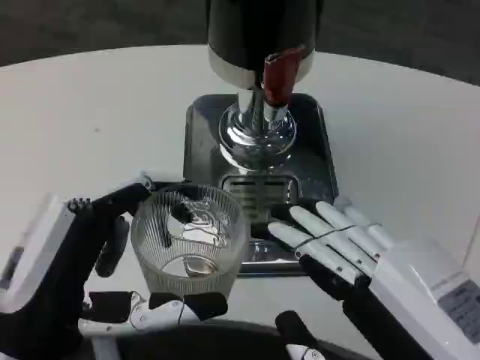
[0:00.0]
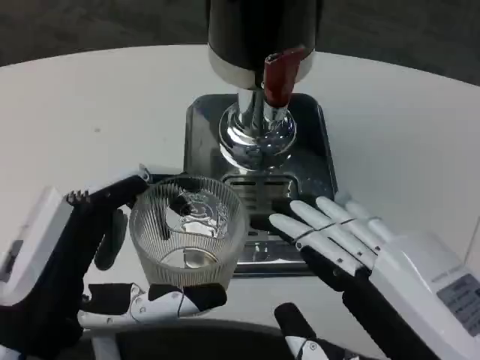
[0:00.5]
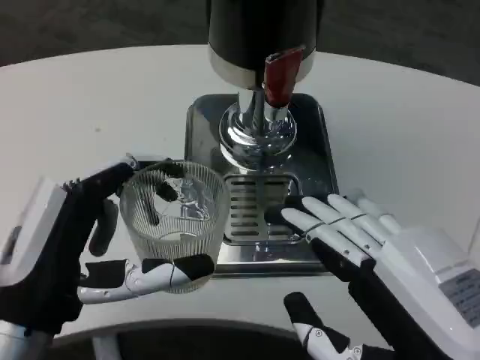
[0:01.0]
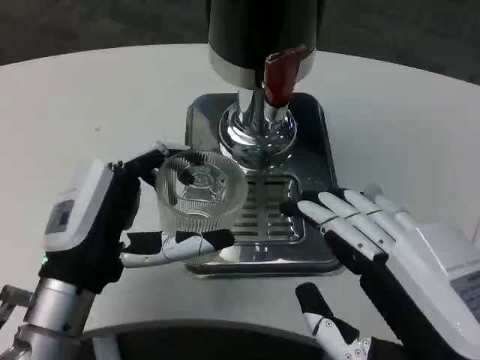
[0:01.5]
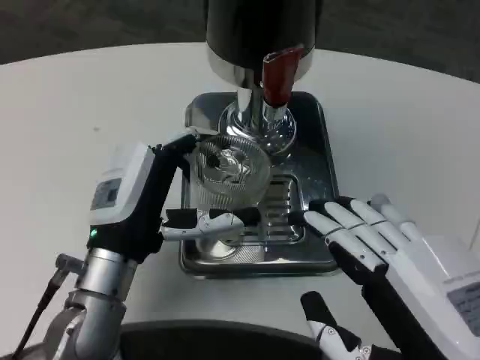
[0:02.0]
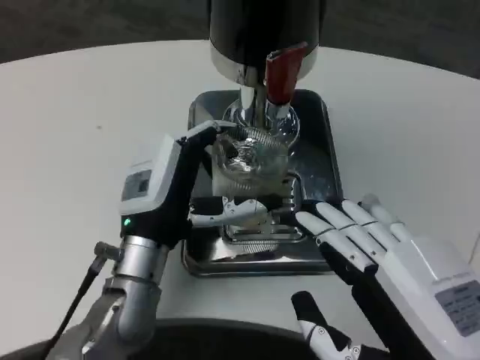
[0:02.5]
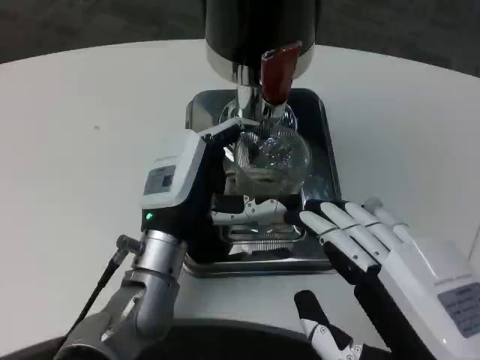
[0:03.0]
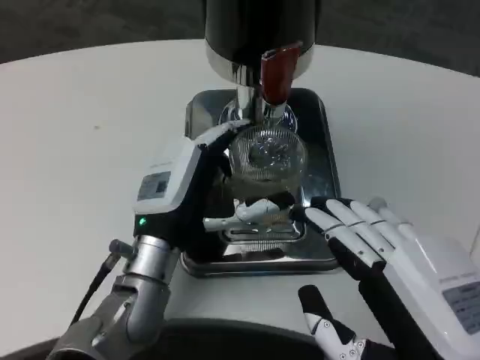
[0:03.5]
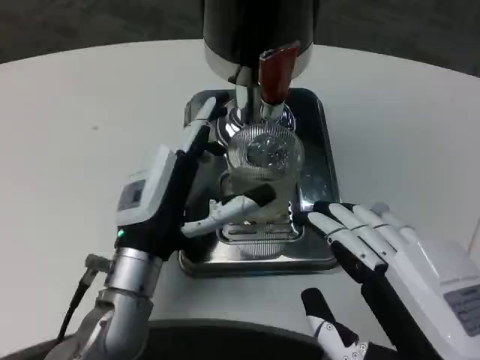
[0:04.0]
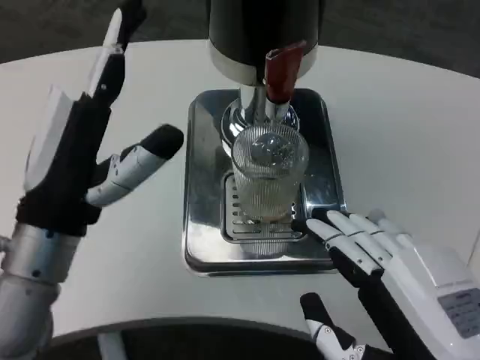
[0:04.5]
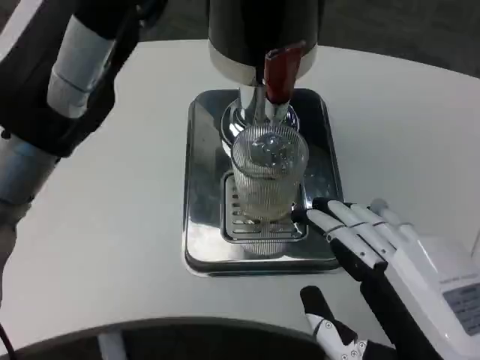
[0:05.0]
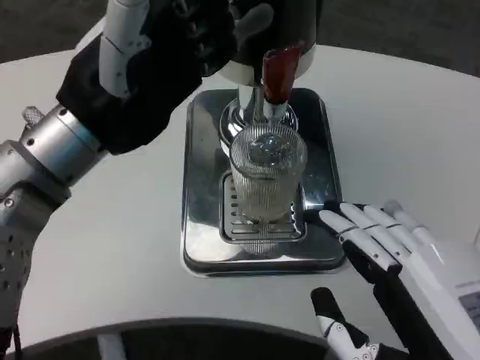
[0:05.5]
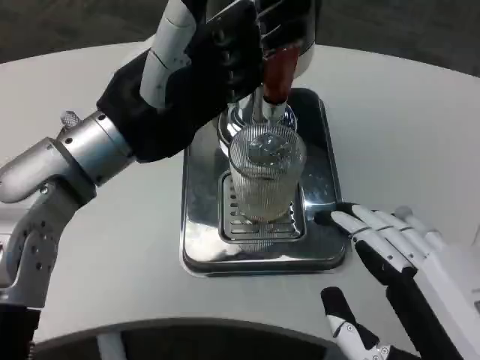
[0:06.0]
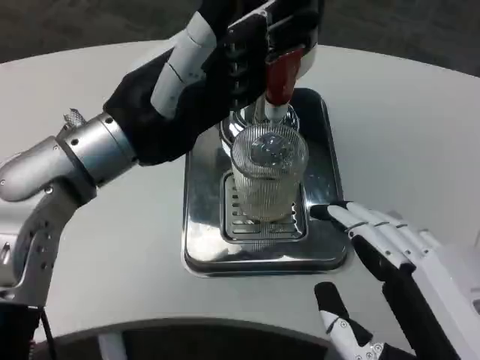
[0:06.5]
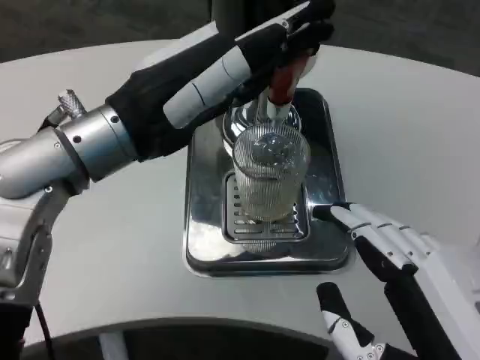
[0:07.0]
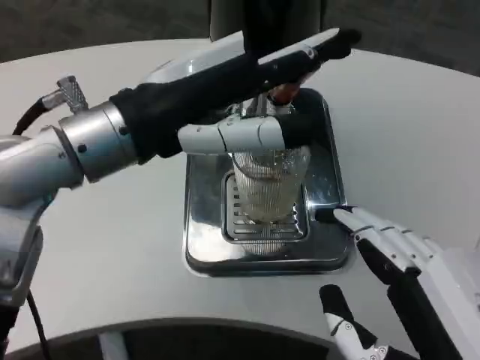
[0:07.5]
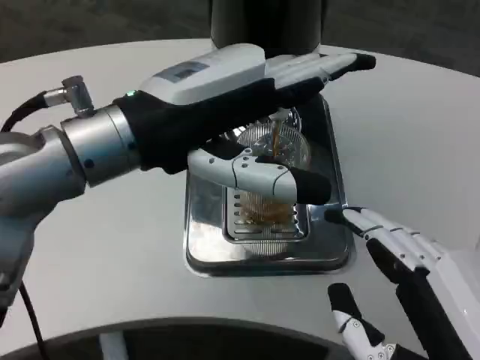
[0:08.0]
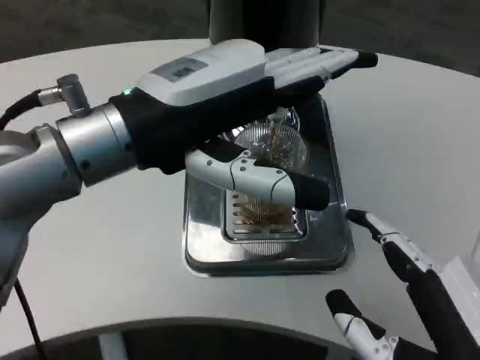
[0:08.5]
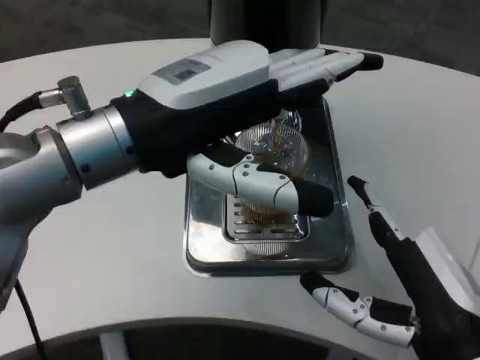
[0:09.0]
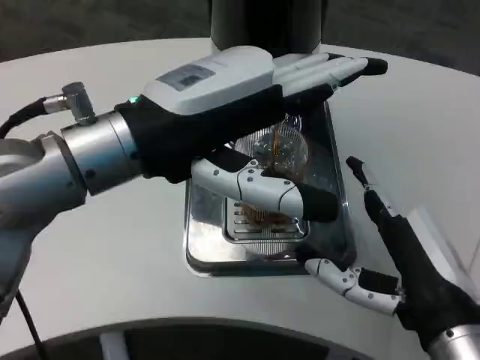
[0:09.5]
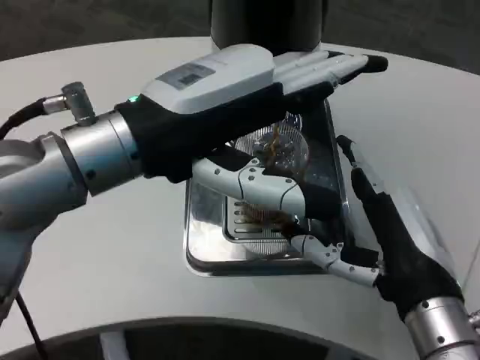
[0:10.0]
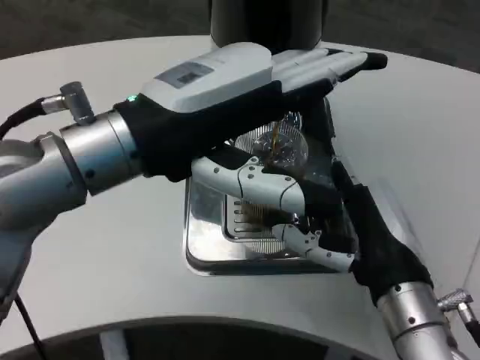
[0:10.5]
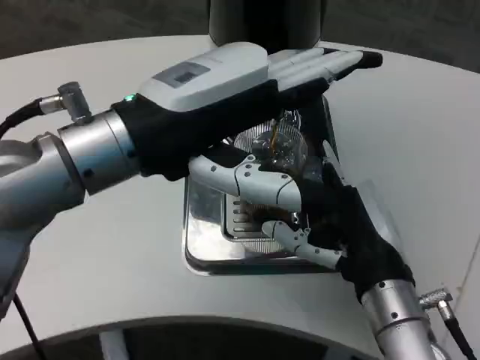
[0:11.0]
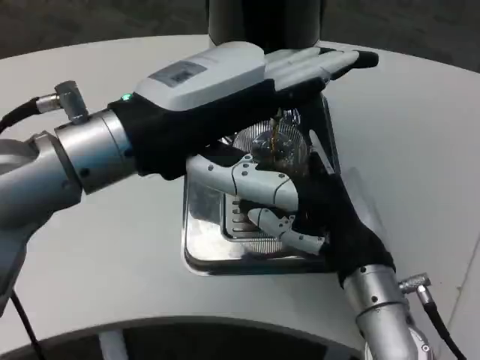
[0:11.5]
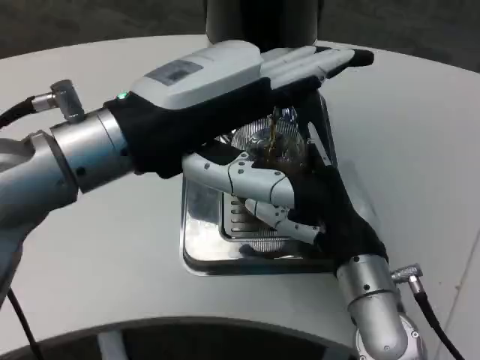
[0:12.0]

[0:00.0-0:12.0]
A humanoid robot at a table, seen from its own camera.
Task of the whole recording: Grasp the cup under the faucet to collect the drink, then remove the cup.
0.0 to 2.0 s: The left hand goes some 15 cm forward.
4.0 to 6.0 s: The left hand shifts some 15 cm upward.
6.0 to 8.0 s: The left hand changes place by some 5 cm.
8.0 to 10.0 s: The right hand heads forward, covering roughly 10 cm.
10.0 to 12.0 s: The right hand shifts approximately 5 cm forward.

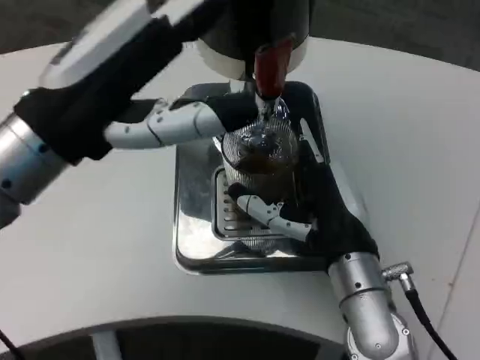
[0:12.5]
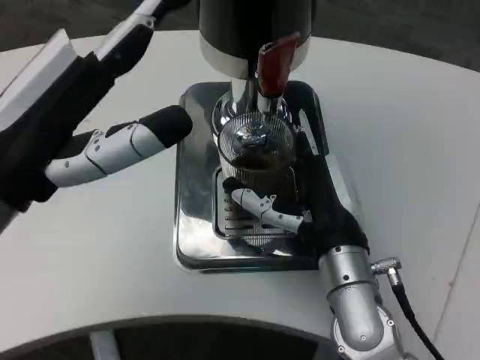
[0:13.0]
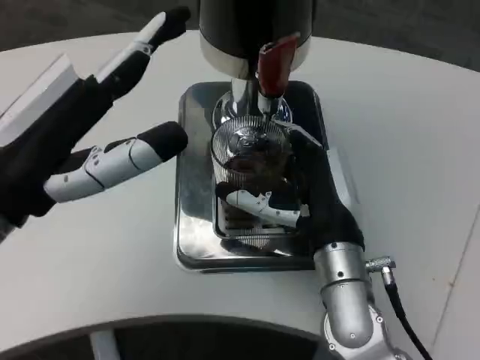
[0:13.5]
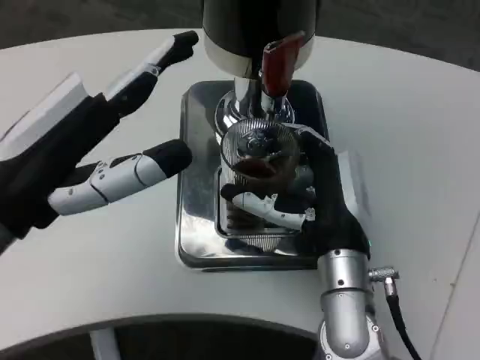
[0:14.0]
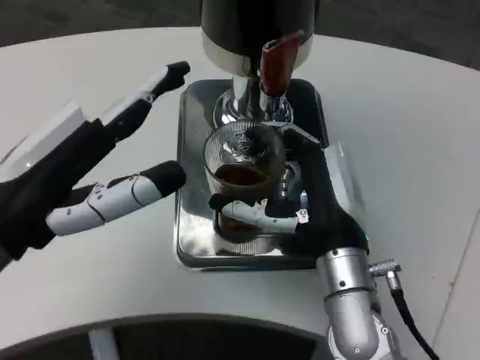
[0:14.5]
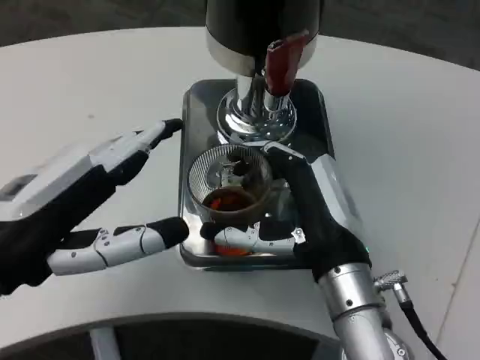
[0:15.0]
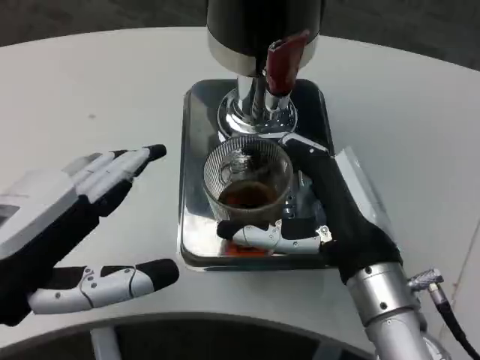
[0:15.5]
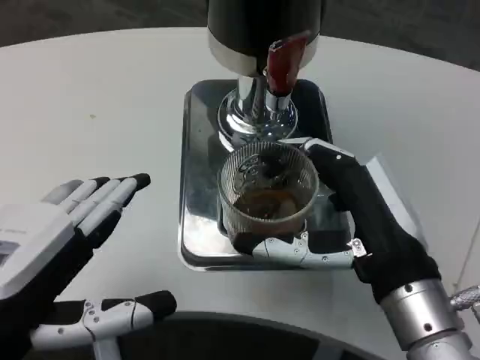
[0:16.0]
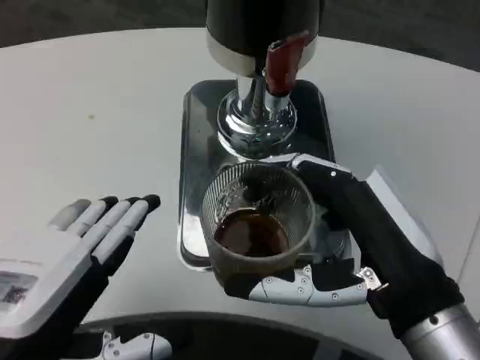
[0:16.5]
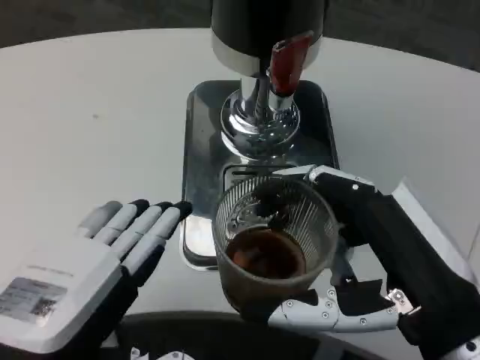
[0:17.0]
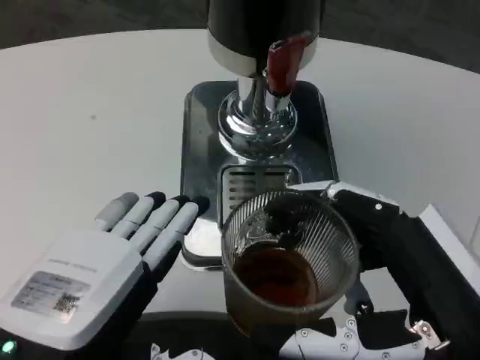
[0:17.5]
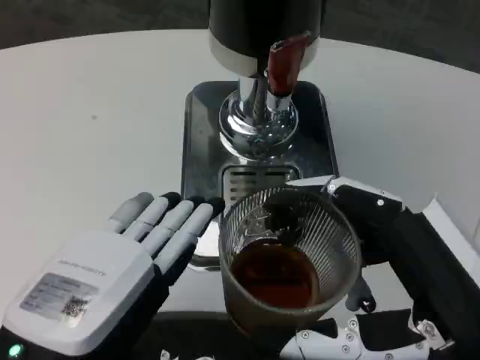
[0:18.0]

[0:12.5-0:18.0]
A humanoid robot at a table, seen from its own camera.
Task of the whole recording: Grasp the cup under the faucet to collect the drink, then remove the cup.
12.5 to 14.5 s: The left hand moves downward, approximately 5 cm.
14.5 to 16.0 s: The left hand goes some 5 cm backward, while the right hand is displaced backward and to the right by approximately 10 cm.
16.0 to 18.0 s: The left hand changes place by roughly 5 cm; the right hand travels backward by roughly 10 cm.

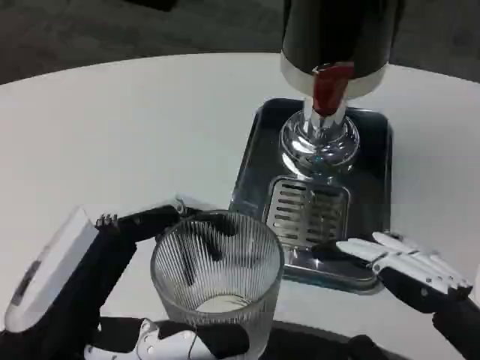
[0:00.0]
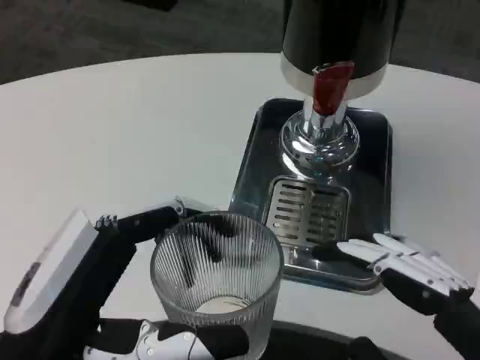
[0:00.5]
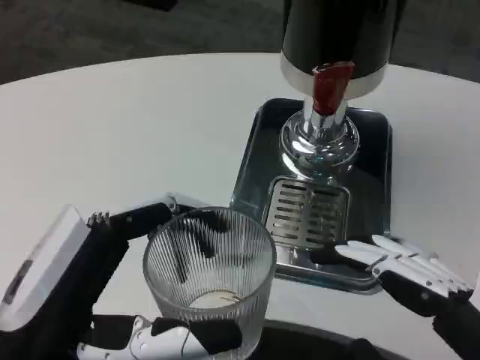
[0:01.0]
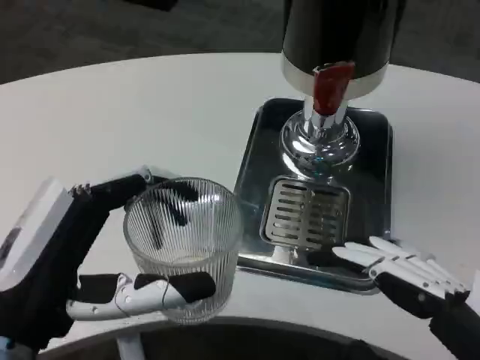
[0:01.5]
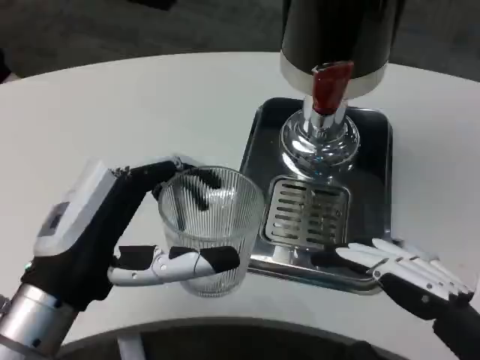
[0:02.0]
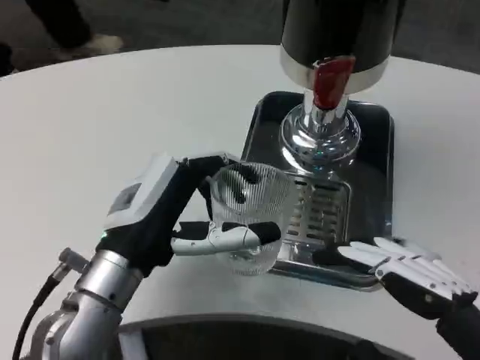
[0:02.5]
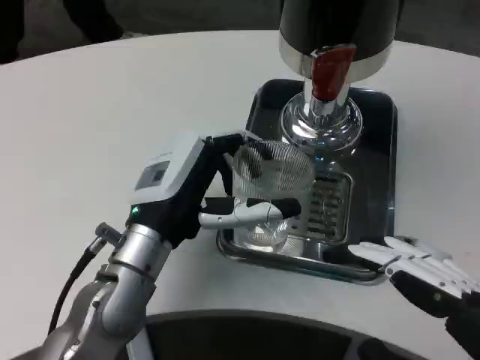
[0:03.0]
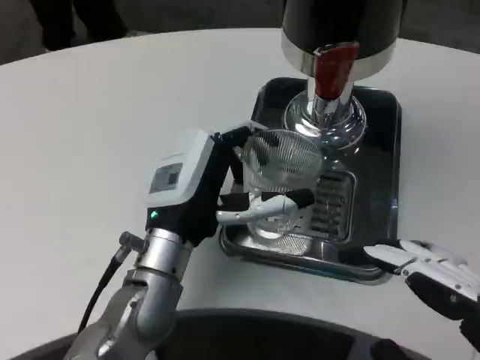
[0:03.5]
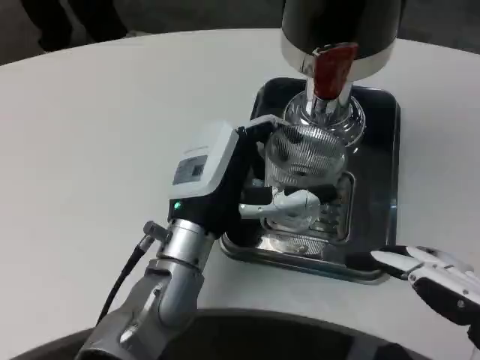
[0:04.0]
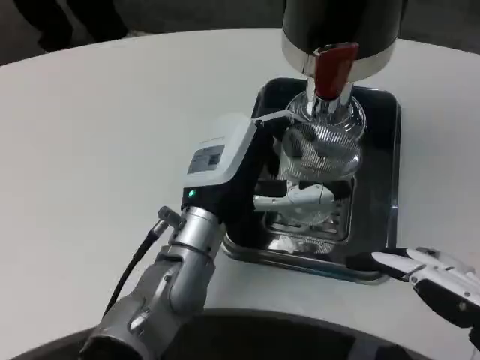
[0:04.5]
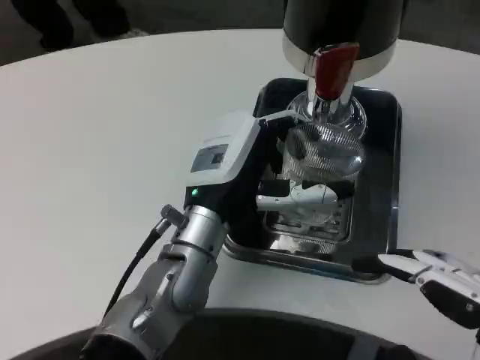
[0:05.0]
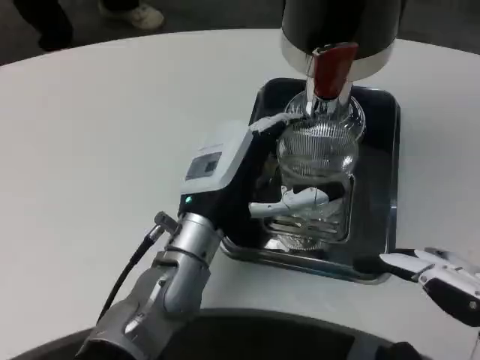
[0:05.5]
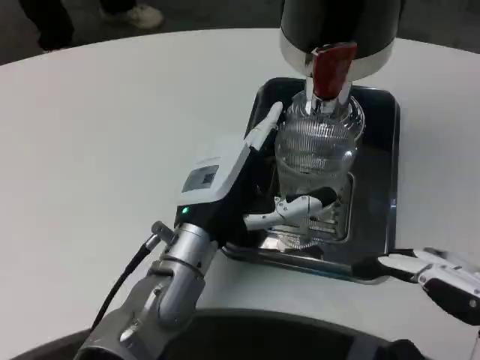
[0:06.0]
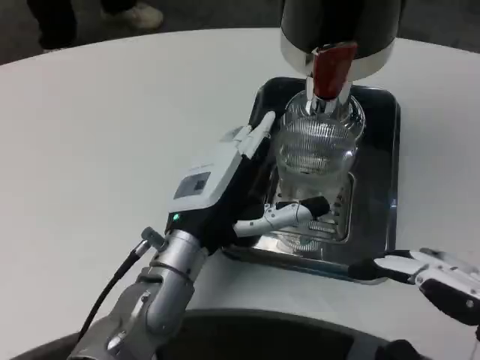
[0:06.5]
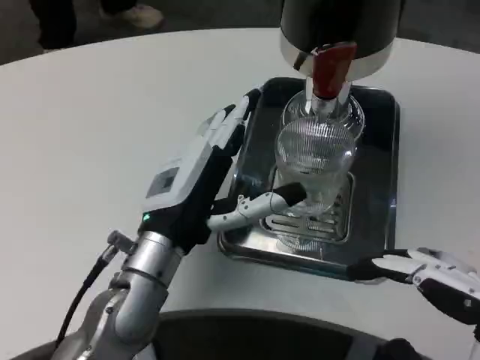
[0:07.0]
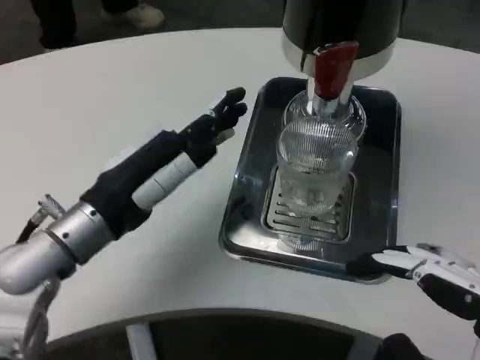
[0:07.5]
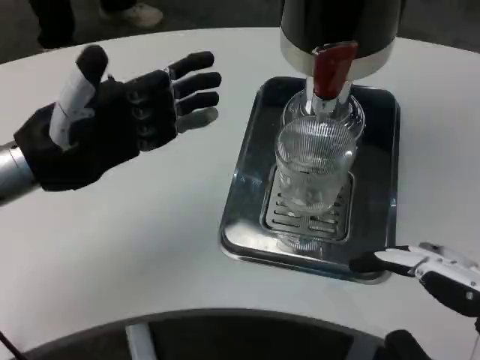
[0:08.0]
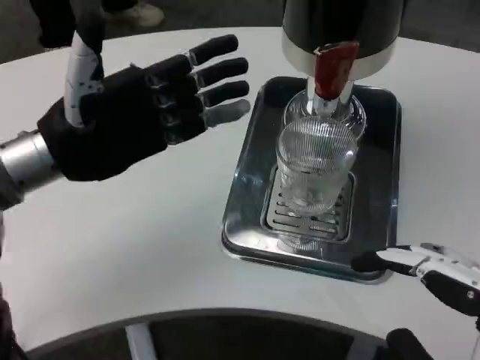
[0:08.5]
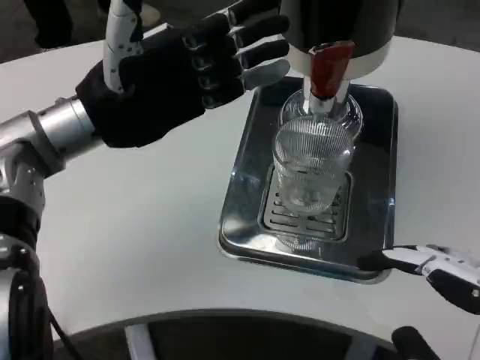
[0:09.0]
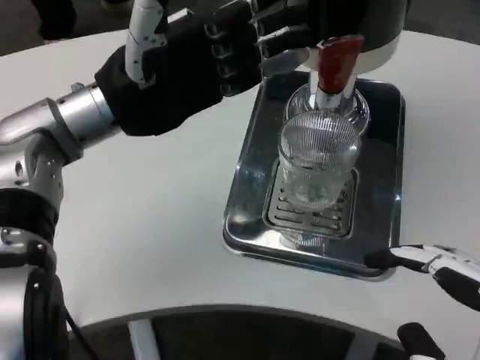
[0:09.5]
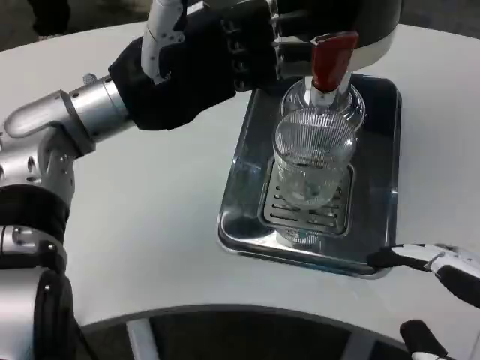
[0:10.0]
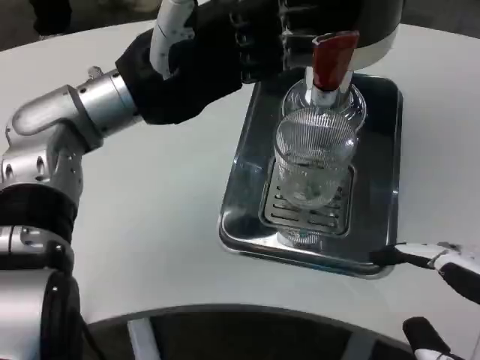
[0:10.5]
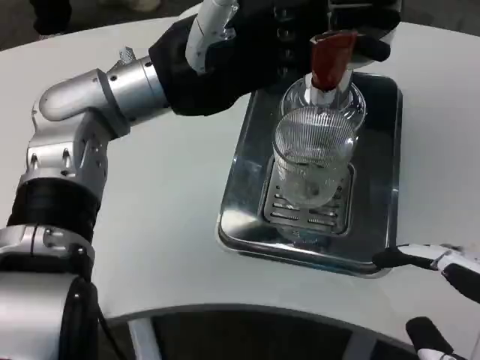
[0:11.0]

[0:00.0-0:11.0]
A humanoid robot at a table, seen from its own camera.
Task of the whole recording: Grasp the cup under the faucet to collect the drink, then remove the cup.
0.0 to 2.0 s: The left hand moves forward, some 10 cm.
2.0 to 3.5 s: The left hand shifts some 15 cm forward and to the right.
5.5 to 7.5 s: The left hand heads to the left, covering roughly 10 cm.
7.5 to 9.0 s: The left hand moves upward and forward, roughly 10 cm.
9.0 to 11.0 s: The left hand travels to the right by about 5 cm.
